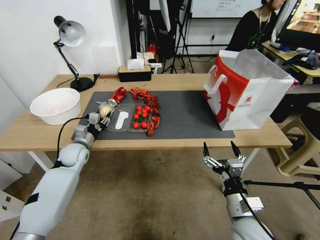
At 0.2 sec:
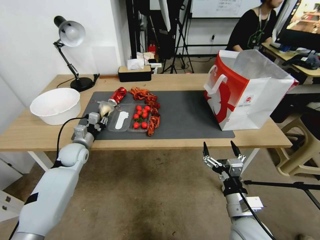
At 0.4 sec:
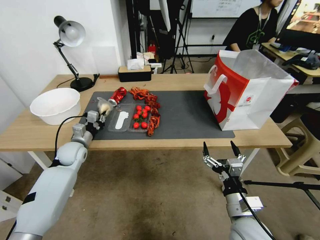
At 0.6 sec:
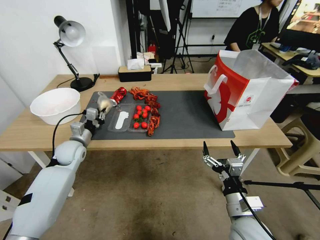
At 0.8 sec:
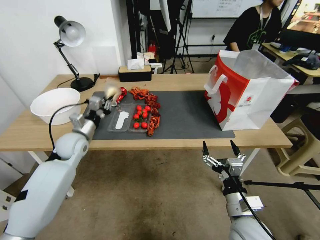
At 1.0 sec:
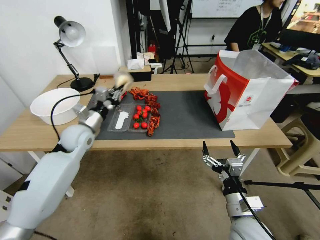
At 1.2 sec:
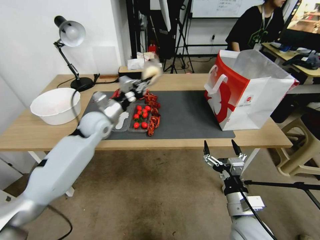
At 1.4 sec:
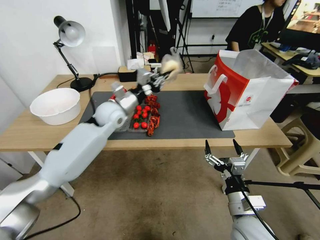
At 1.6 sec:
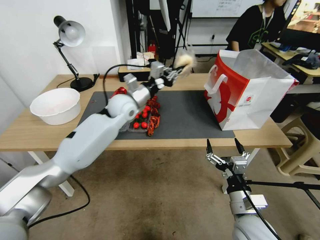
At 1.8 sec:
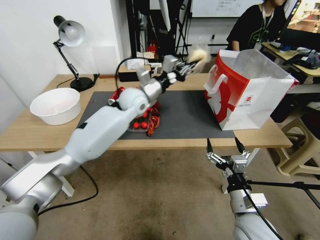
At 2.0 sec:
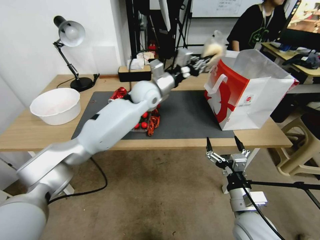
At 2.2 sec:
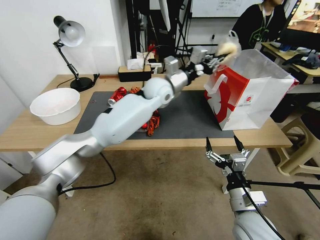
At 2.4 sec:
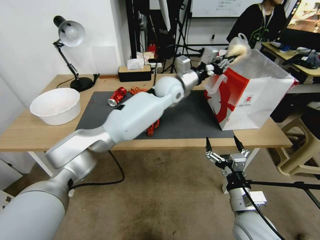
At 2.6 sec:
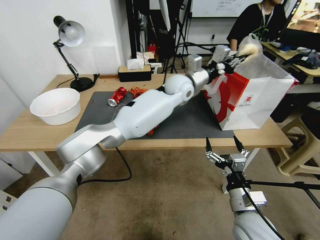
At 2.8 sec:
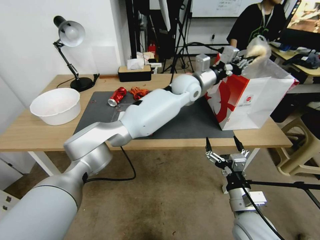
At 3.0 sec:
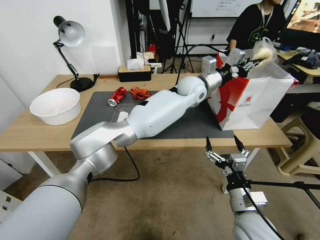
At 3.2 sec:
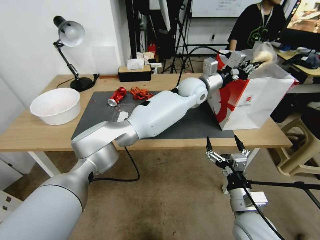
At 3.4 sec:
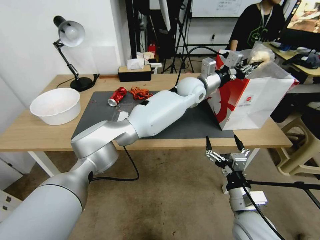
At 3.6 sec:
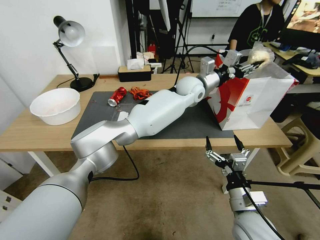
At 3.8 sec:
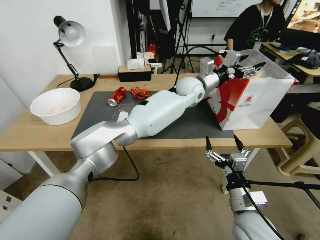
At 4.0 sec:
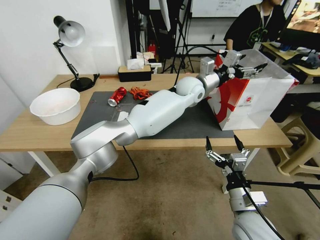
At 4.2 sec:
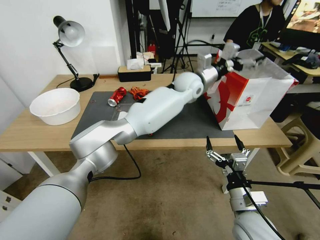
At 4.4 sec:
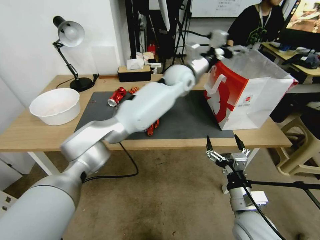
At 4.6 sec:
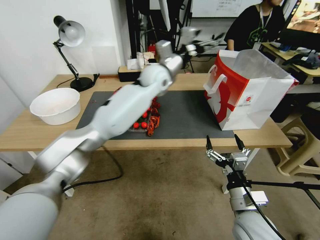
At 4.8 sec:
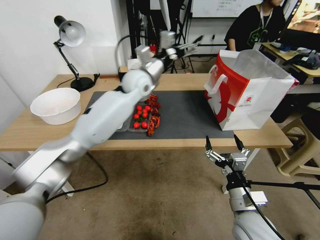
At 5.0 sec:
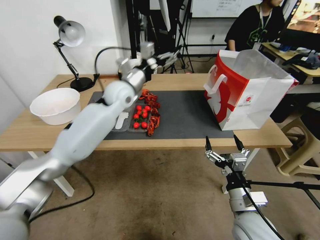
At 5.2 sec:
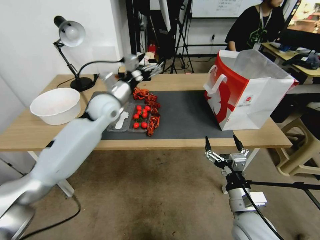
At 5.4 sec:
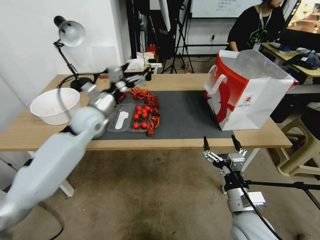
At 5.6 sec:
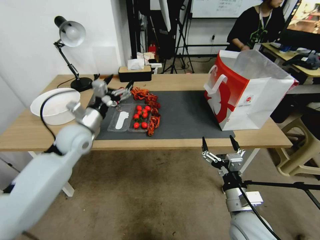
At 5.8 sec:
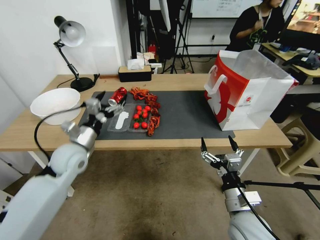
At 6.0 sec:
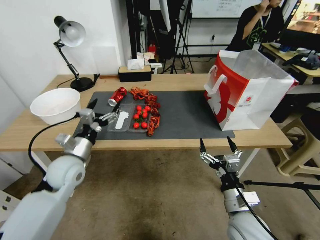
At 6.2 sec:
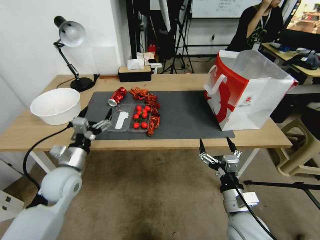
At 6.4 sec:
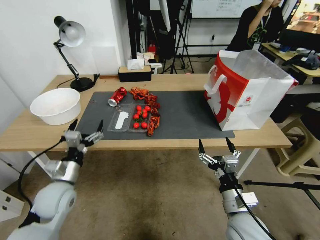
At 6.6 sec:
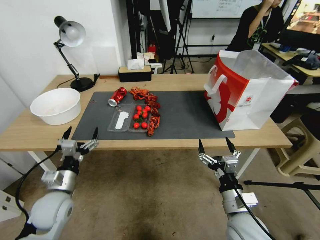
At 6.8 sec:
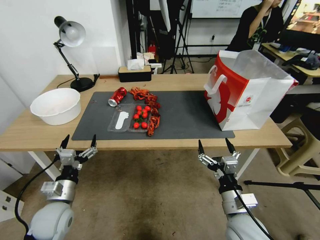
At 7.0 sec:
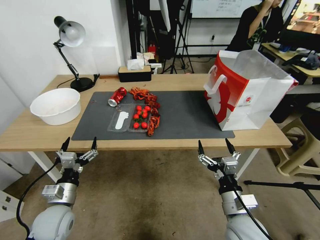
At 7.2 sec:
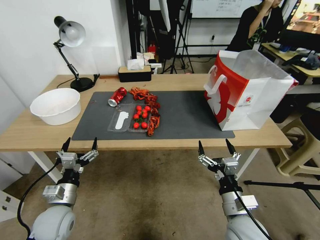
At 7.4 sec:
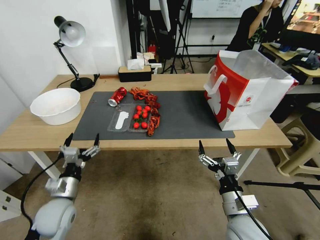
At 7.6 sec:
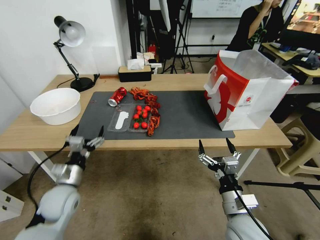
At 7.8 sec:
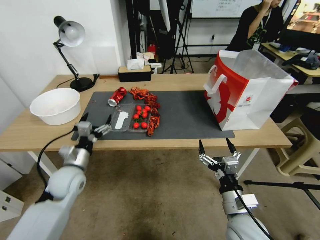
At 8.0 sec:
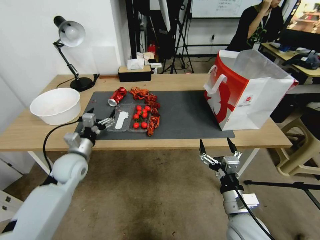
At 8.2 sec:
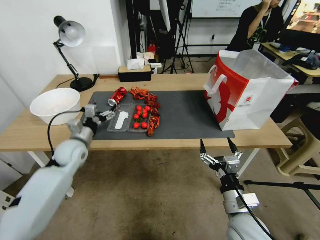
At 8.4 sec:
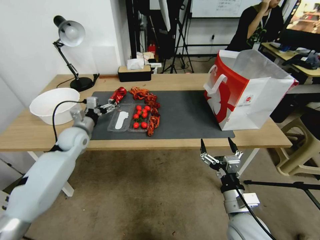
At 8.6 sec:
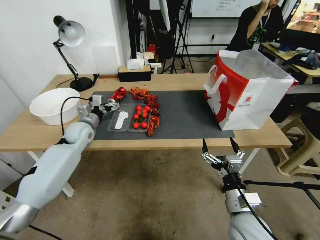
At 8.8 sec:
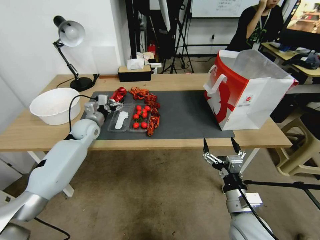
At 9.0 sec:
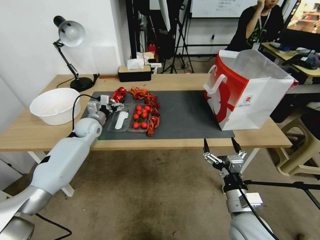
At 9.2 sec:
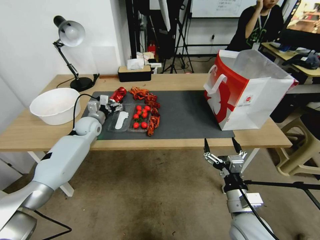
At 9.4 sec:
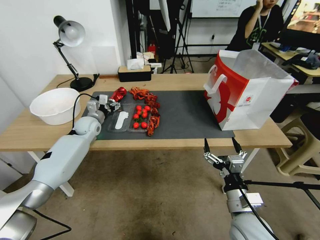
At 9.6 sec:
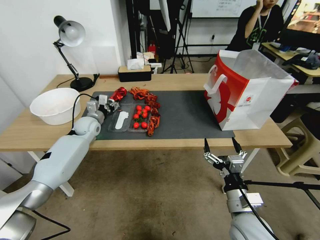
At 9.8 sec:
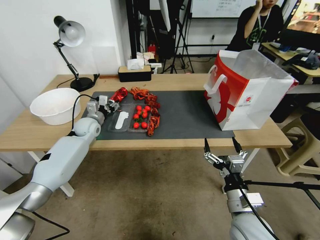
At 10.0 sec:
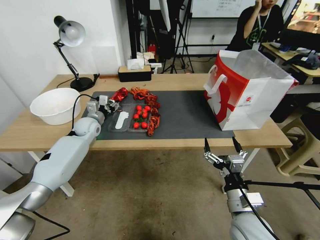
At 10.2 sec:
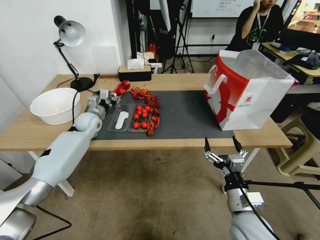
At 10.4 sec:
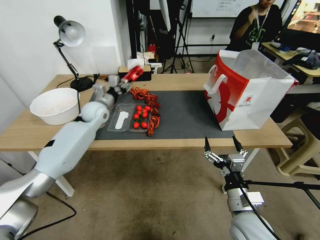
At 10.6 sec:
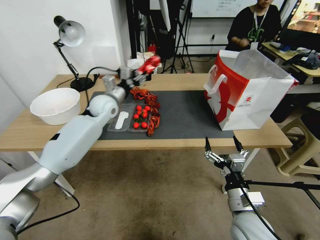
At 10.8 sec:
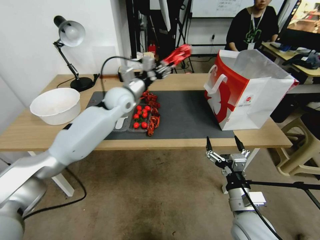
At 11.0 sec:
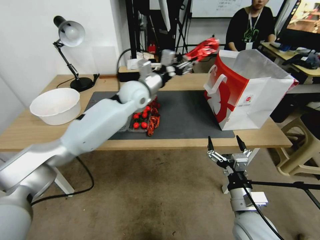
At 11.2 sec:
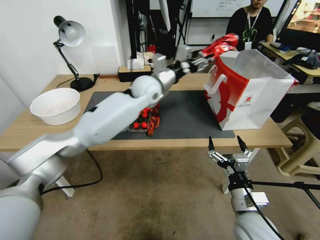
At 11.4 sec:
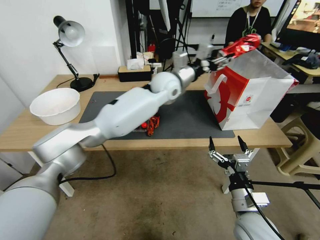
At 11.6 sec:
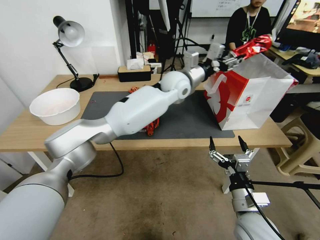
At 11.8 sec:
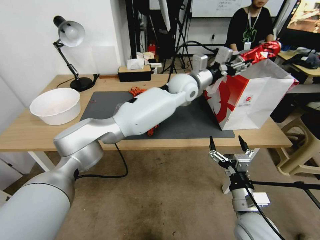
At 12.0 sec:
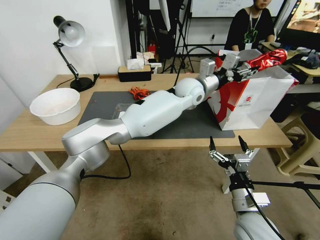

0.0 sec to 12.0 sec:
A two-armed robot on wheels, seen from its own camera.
0.0 sec to 1.6 sec: The left gripper heads to the right and upward, covering roughly 25 cm, and closes its fingers.
1.6 sec to 3.0 sec: The left gripper moves to the right, roughly 20 cm.
3.0 sec to 4.4 sec: The left gripper opens.
4.4 sec to 6.0 sec: The left gripper travels to the left, backward and downward by about 40 cm.
6.0 sec to 7.6 sec: The left gripper is displaced backward and downward by roughly 15 cm.
7.6 sec to 9.0 sec: The left gripper goes approximately 25 cm forward.
9.0 sec to 10.4 sec: The left gripper travels upward by approximately 5 cm, and closes.
10.4 sec to 12.0 sec: The left gripper goes about 35 cm to the right.

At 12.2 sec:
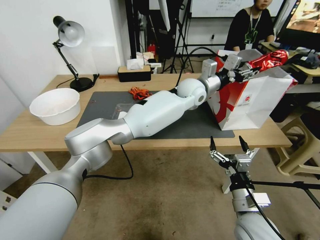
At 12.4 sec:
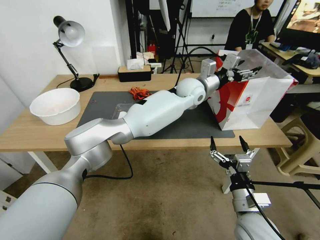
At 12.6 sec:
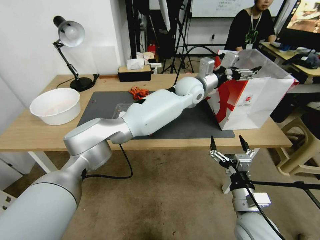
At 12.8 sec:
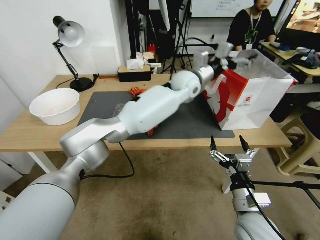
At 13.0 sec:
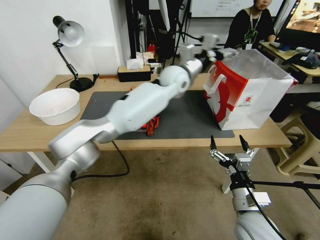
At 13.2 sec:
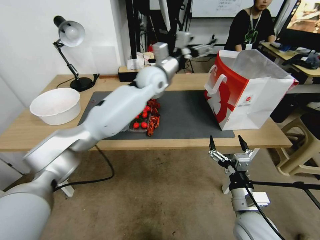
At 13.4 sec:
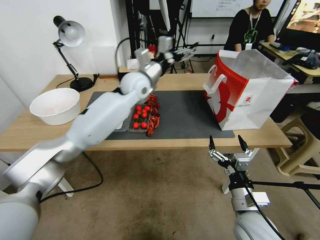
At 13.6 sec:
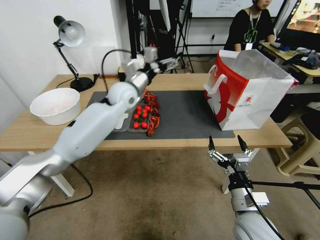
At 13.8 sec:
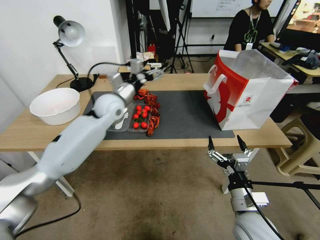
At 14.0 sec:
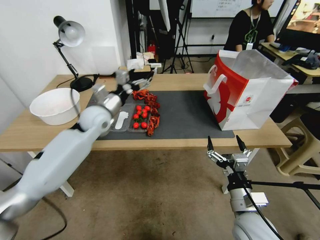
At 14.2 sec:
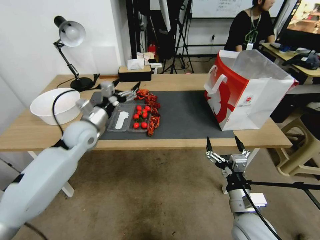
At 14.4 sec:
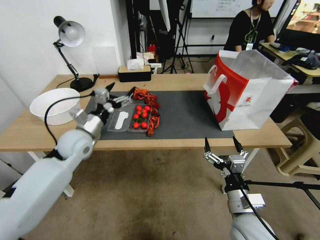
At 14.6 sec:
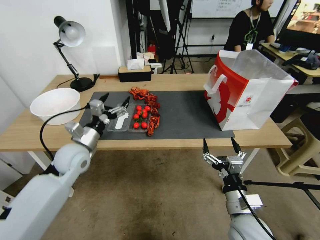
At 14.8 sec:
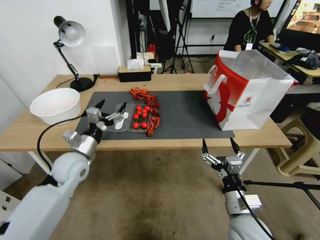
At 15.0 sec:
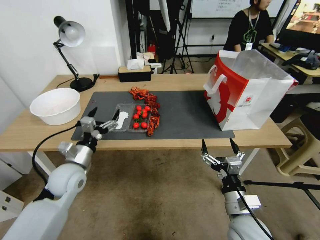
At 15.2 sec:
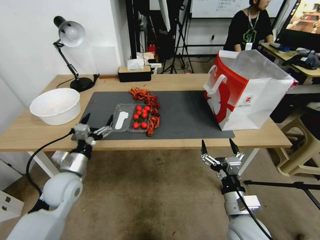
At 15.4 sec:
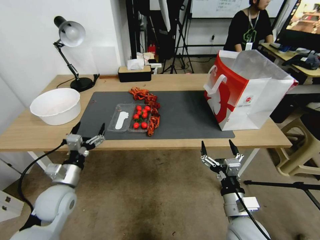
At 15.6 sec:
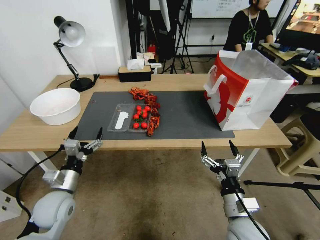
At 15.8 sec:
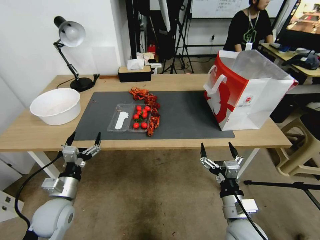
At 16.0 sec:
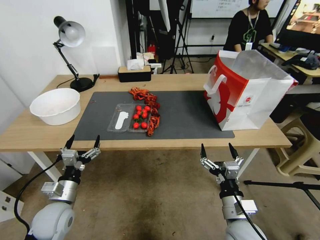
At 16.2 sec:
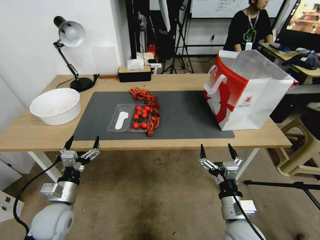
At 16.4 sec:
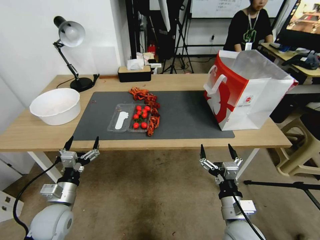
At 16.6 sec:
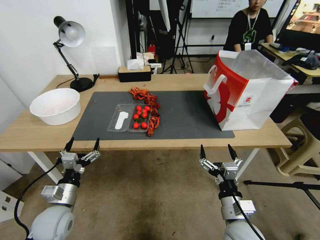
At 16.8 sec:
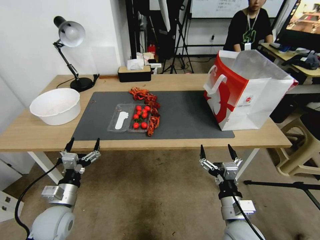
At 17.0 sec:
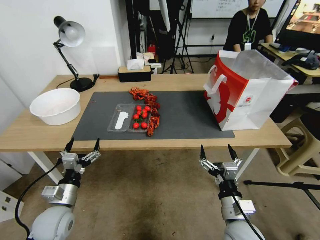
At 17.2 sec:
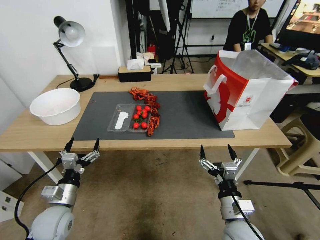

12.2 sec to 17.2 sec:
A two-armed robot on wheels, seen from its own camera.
12.2 sec to 13.8 sec: The left gripper goes approximately 30 cm to the left, and opens its fingers.
13.8 sec to 15.6 sec: The left gripper shifts roughly 35 cm backward, downward and to the left.
15.6 sec to 17.2 sec: The left gripper moves some 5 cm.
